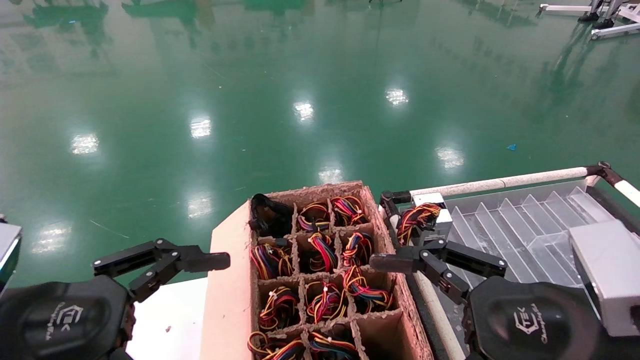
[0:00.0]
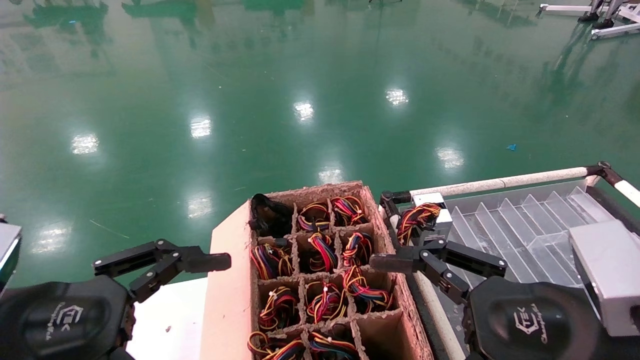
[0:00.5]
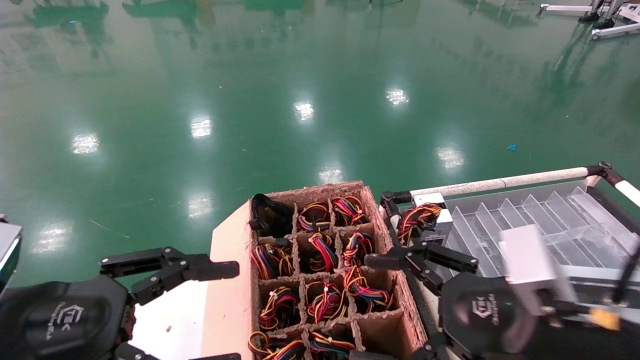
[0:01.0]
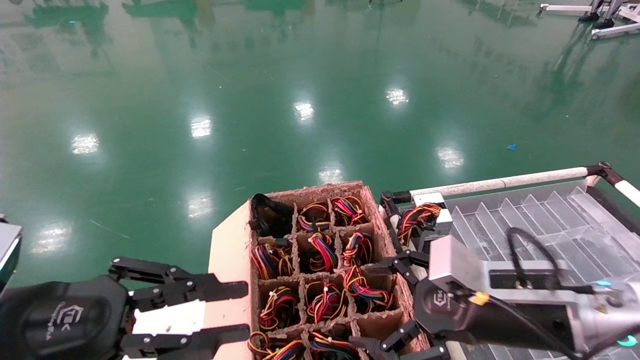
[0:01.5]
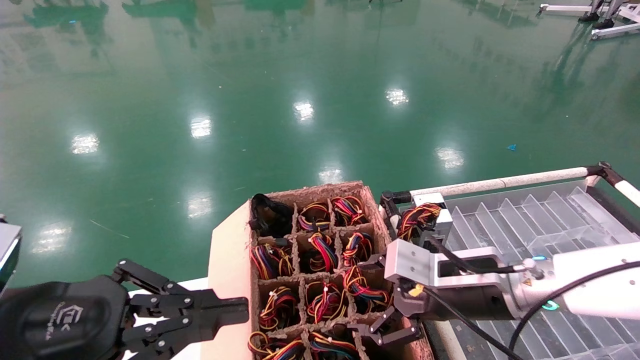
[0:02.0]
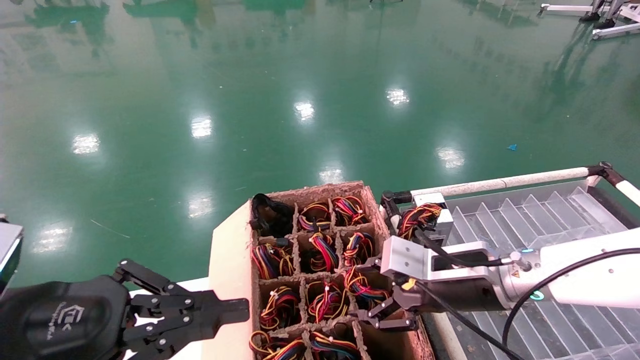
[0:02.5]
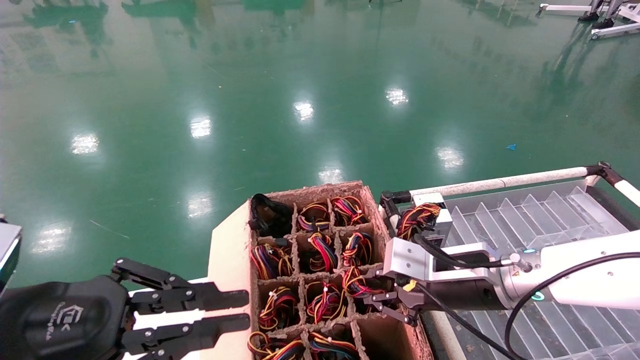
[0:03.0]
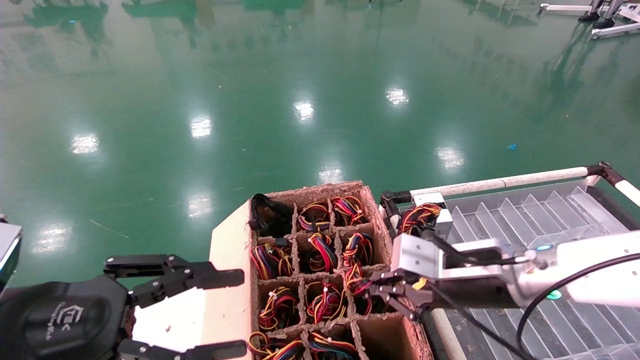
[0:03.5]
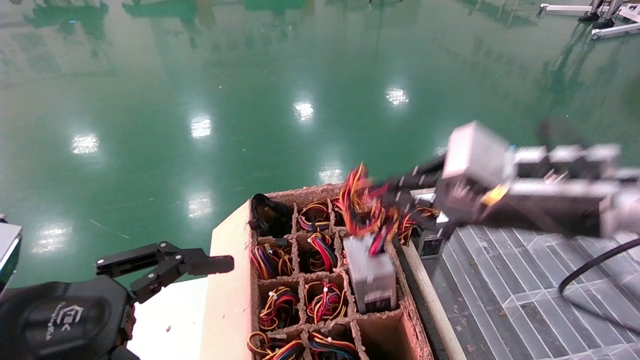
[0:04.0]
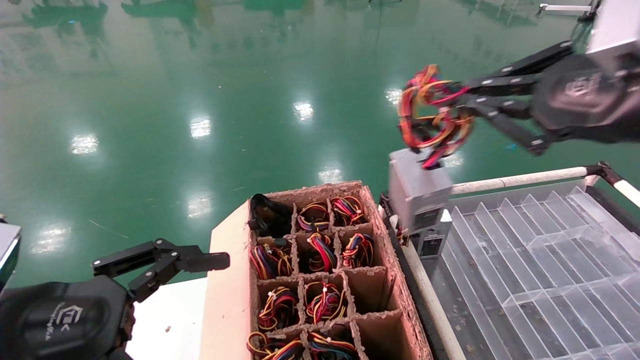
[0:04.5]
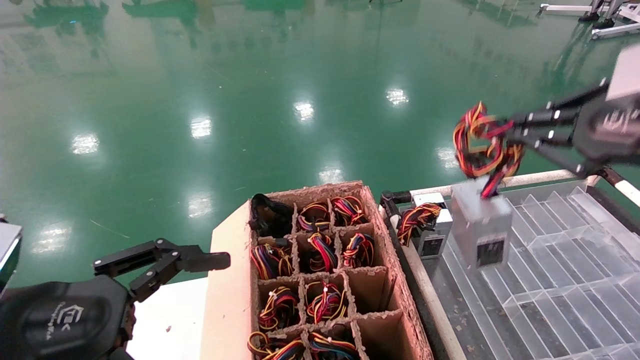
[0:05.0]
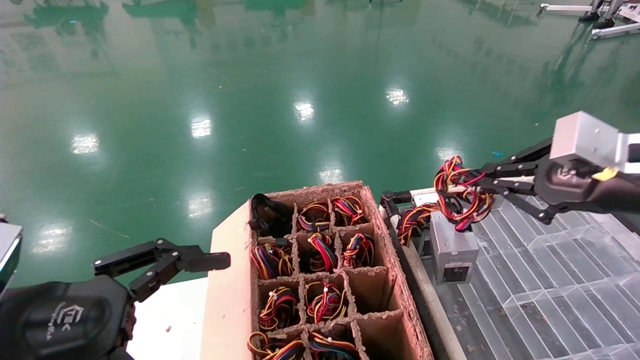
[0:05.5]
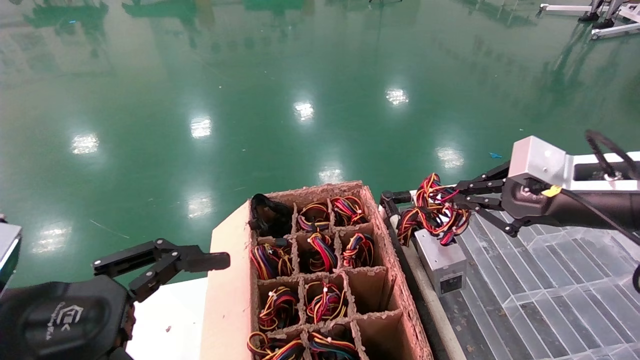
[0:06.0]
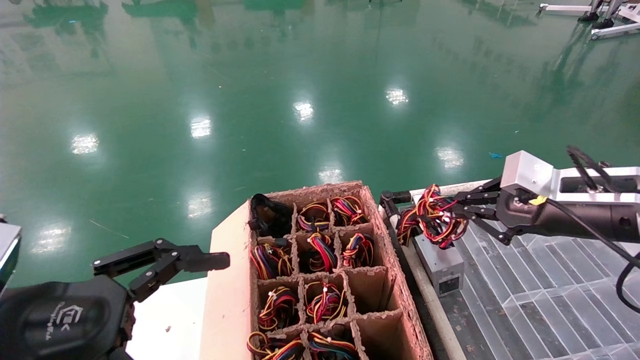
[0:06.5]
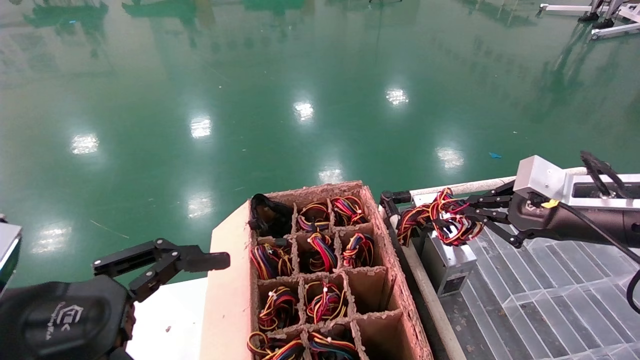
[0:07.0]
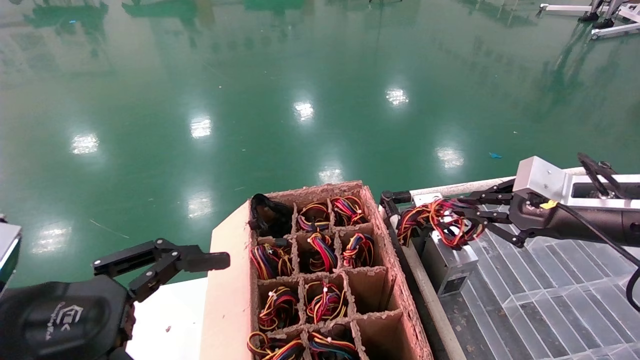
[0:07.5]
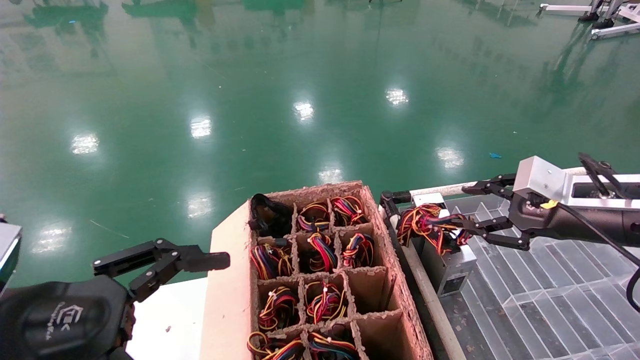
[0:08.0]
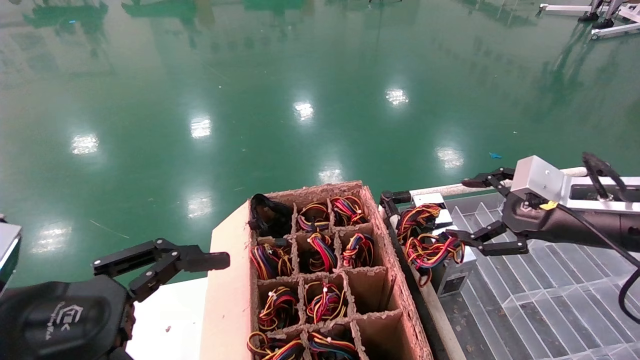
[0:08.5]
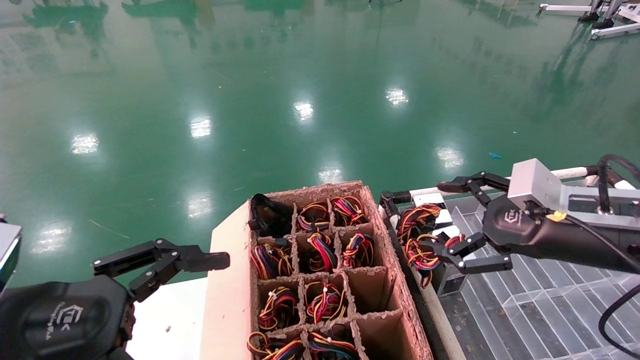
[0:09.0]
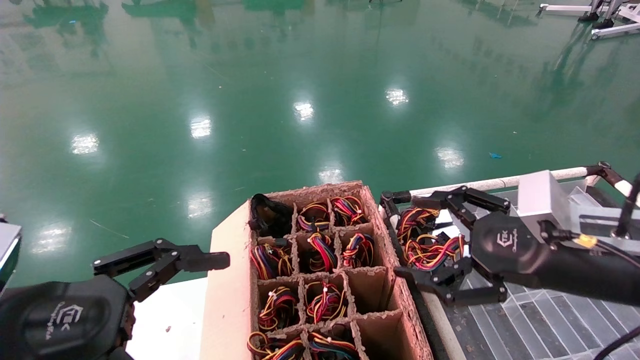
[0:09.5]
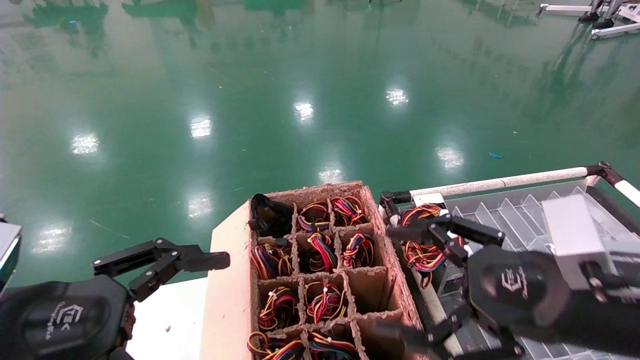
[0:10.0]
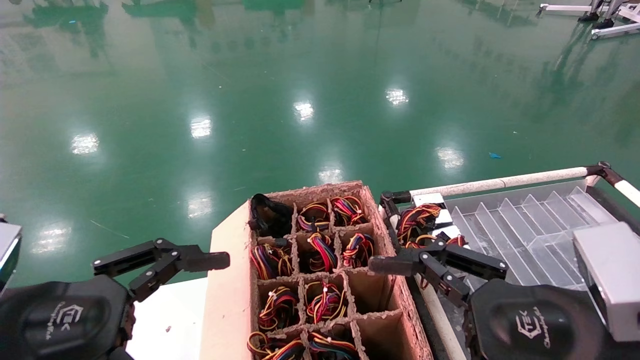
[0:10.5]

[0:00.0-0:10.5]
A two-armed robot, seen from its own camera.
Step, 0:01.5 to 0:03.5: Grab and lift the power supply from the large box.
Step, 0:04.0 to 0:07.5: Place the power supply on the operating table.
0:00.0 to 0:02.0: The right gripper shifts approximately 15 cm forward; the left gripper closes its fingers.
0:02.0 to 0:04.0: The left gripper opens its fingers. The right gripper moves upward and backward, about 15 cm, and closes its fingers.
0:04.0 to 0:06.5: The right gripper heads to the right and forward, covering roughly 10 cm.
0:06.5 to 0:08.5: The right gripper opens.
0:08.5 to 0:10.5: The right gripper goes approximately 20 cm backward and to the left.
